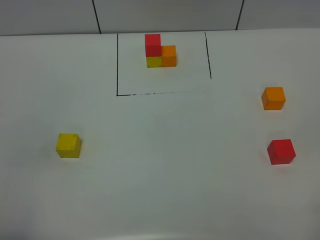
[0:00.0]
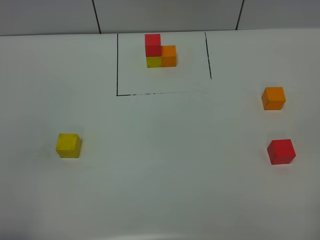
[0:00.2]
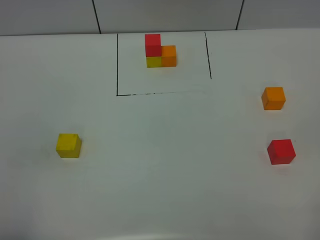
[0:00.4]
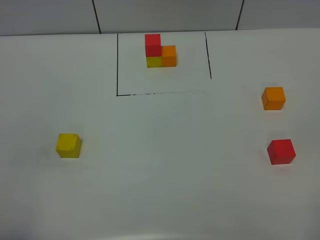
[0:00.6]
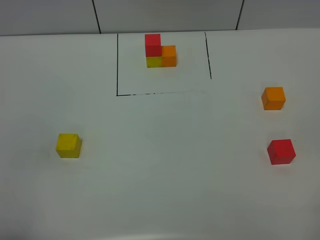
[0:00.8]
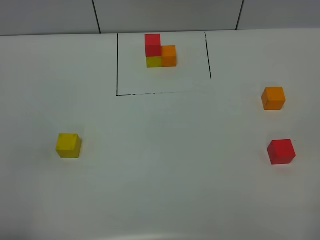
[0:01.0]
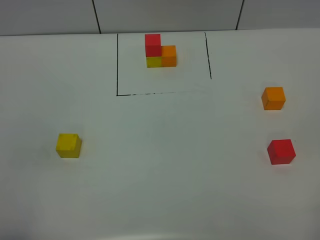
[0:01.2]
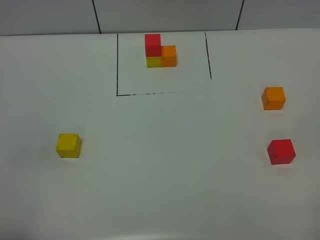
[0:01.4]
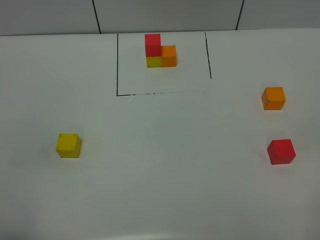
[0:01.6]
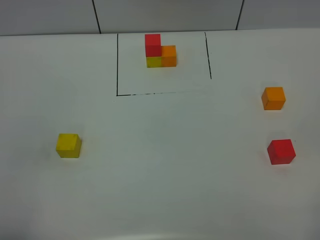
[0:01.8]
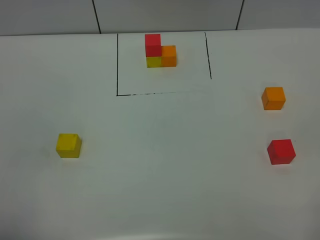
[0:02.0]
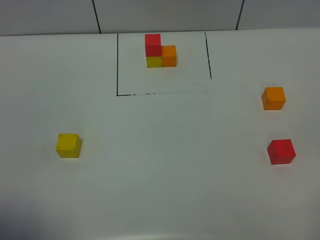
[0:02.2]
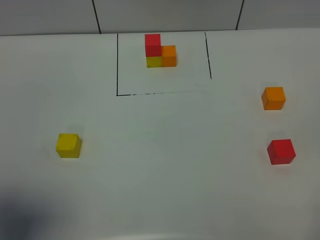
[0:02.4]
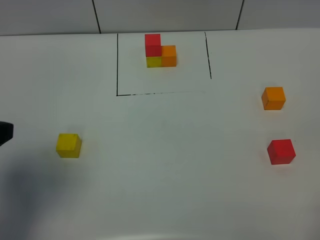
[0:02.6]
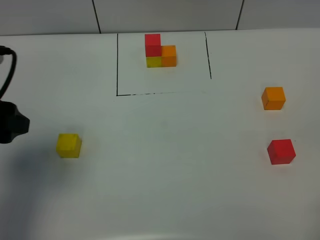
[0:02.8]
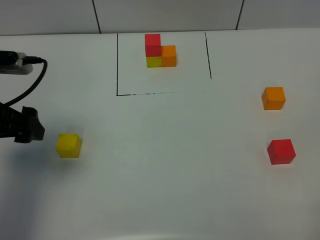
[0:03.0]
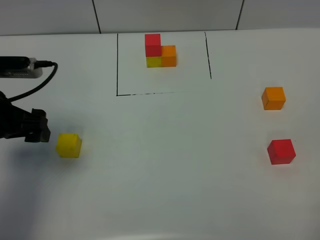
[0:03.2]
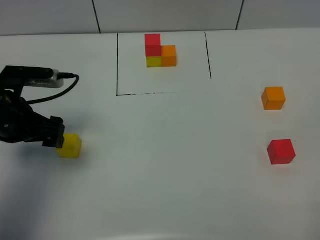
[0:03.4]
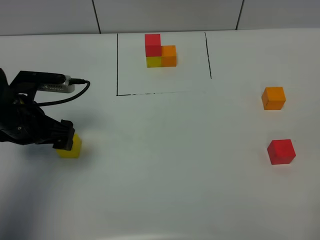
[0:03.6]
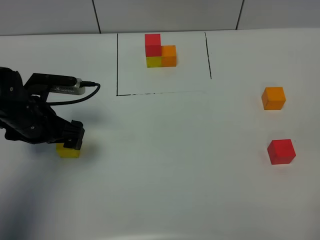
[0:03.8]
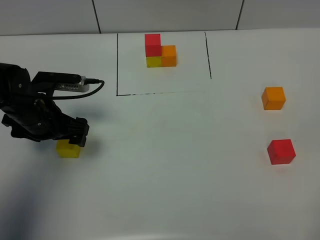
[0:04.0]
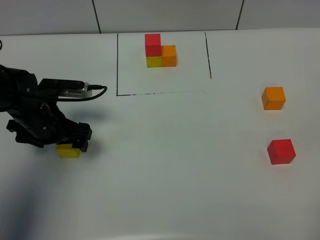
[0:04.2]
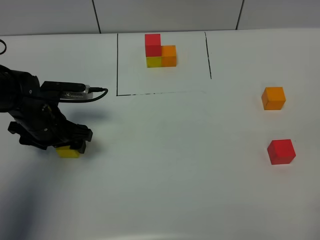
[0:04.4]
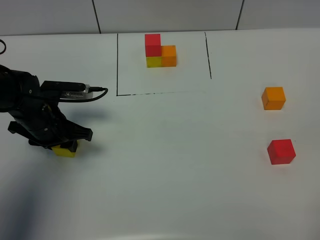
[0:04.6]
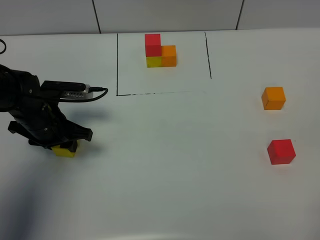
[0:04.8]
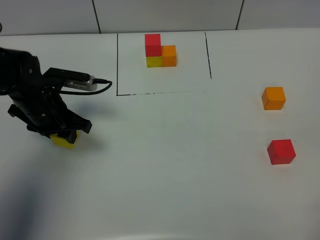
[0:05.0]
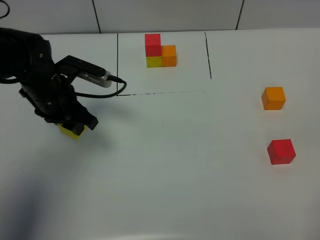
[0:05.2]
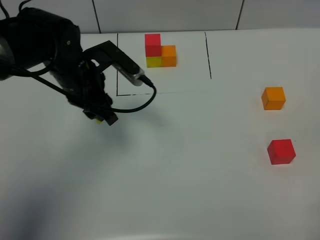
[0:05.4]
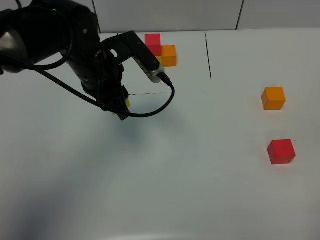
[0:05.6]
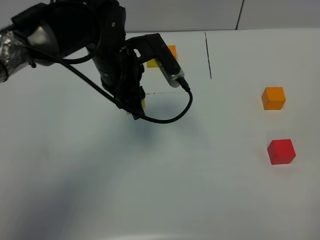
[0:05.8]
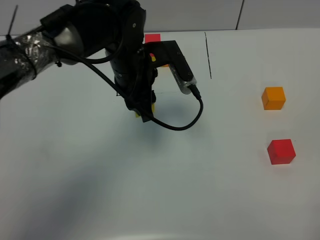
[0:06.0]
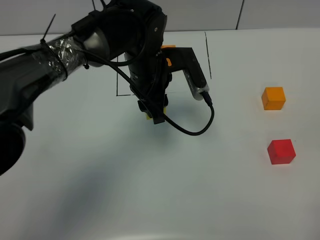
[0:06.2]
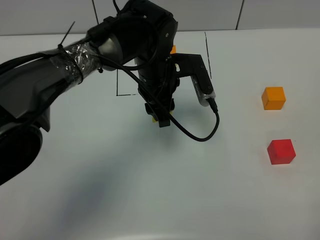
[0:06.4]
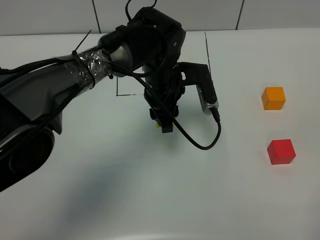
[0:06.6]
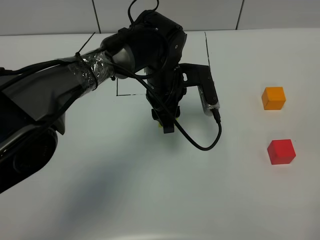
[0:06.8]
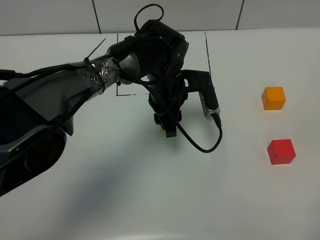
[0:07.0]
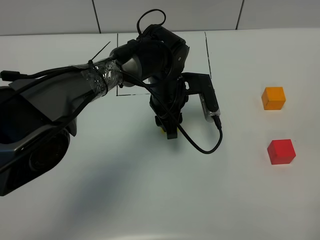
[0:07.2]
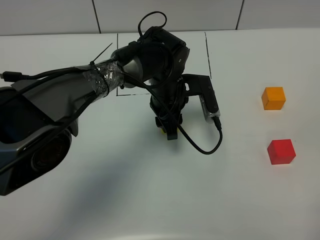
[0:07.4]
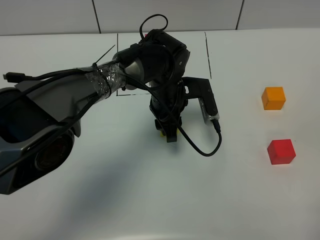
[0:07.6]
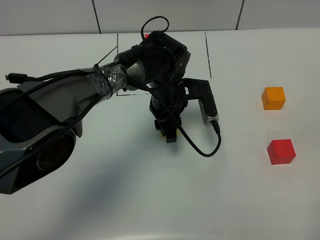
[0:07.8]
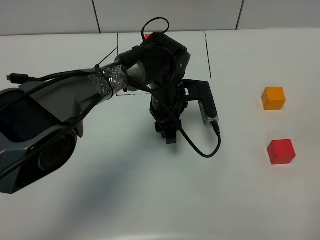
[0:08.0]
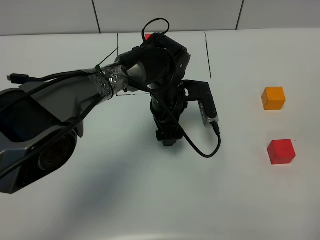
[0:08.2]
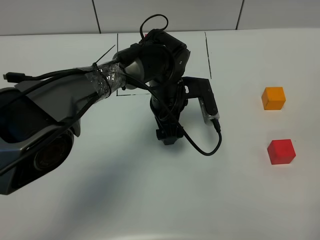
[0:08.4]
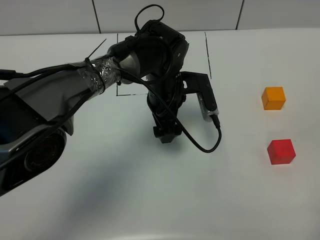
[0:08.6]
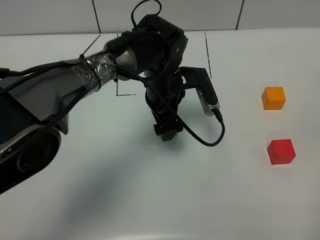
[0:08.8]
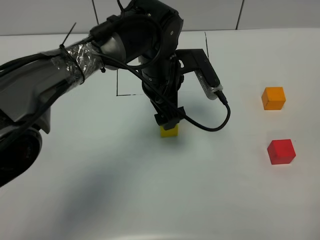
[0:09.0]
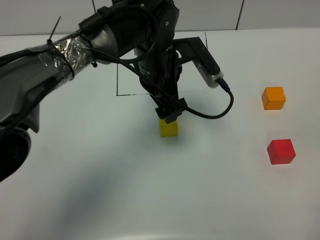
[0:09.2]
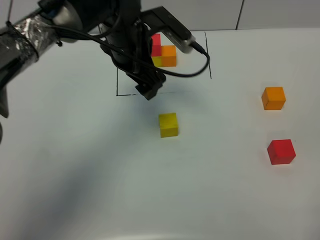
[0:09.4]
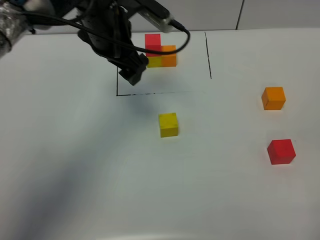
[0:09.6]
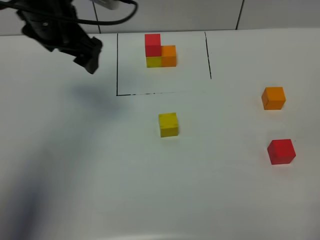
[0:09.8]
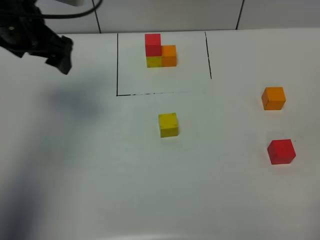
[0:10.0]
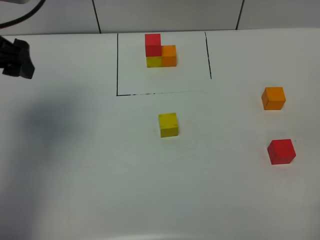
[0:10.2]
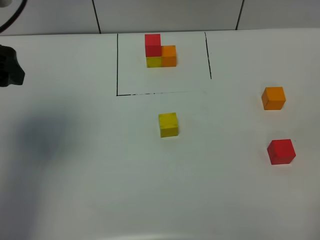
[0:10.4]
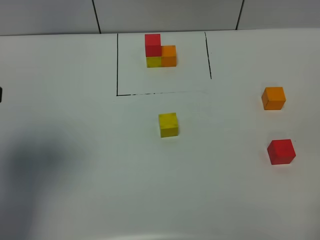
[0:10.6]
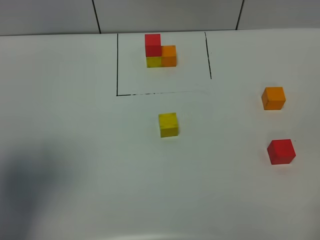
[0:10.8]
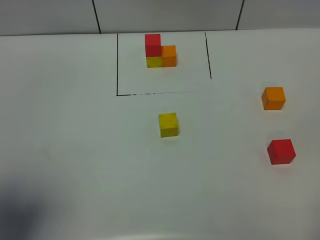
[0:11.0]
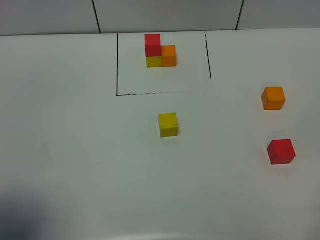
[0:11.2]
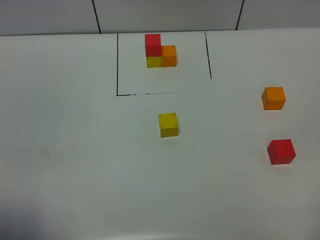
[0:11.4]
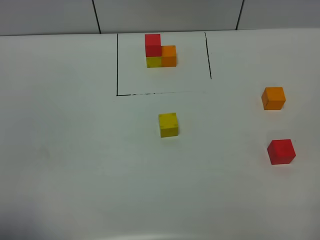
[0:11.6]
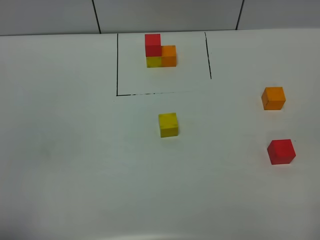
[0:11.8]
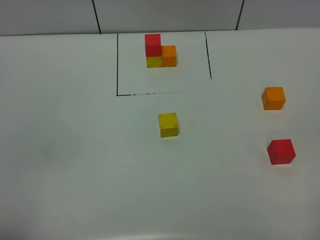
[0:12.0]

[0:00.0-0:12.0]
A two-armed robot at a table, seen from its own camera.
Task of the whole recording: According to the building block template in front, assemble the scattered blocks together.
Step, 0:00.0 to 0:08.0: Put the yellow build block in the center of the table.
0:00.0 to 0:01.6: Both grippers stay put.
0:01.6 to 0:03.0: The left gripper moves forward, about 25 cm, and opens its fingers.
0:03.0 to 0:04.4: The left gripper moves downward and forward, some 15 cm, and closes up.
0:04.4 to 0:06.0: The left gripper travels to the right and upward by some 20 cm, and closes up.
0:06.0 to 0:07.6: The left gripper is displaced downward and to the right by approximately 10 cm.
0:07.6 to 0:09.0: The left gripper travels upward by some 10 cm, and opens.
0:09.0 to 0:10.4: The left gripper shifts roughly 30 cm to the left and upward.
0:10.4 to 0:12.0: The left gripper shifts some 25 cm backward.

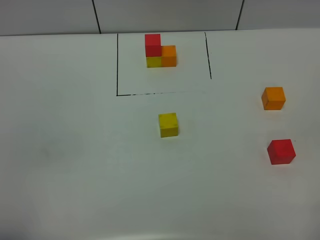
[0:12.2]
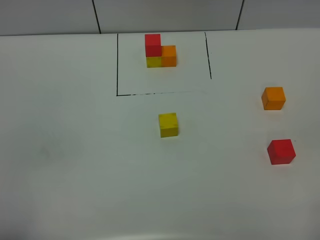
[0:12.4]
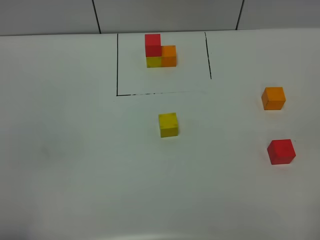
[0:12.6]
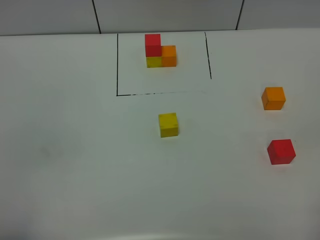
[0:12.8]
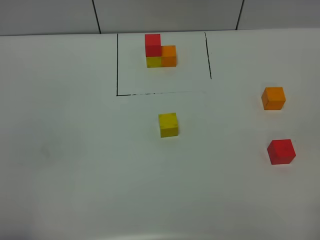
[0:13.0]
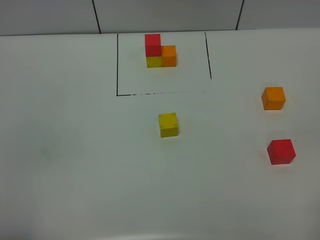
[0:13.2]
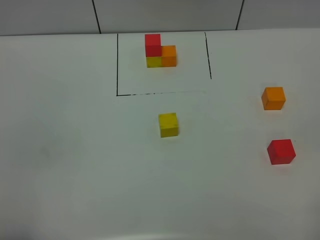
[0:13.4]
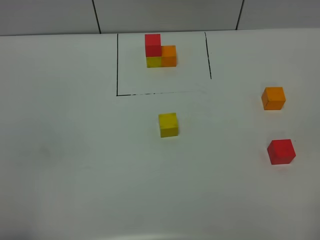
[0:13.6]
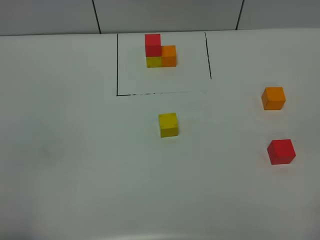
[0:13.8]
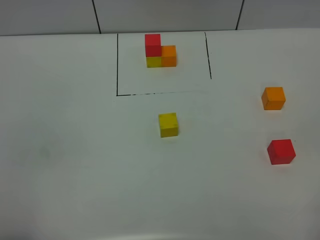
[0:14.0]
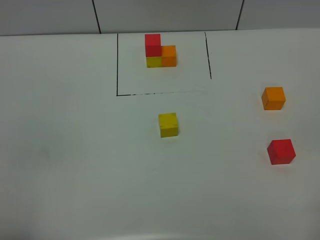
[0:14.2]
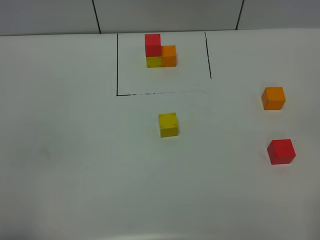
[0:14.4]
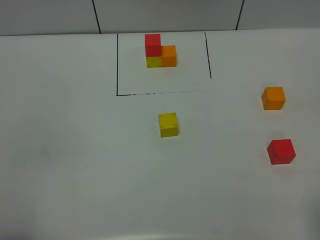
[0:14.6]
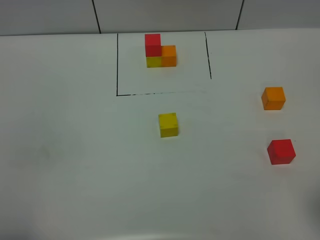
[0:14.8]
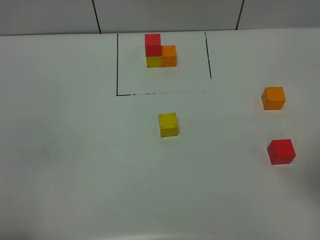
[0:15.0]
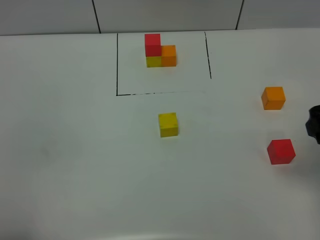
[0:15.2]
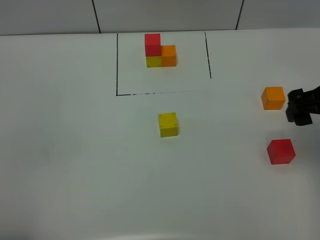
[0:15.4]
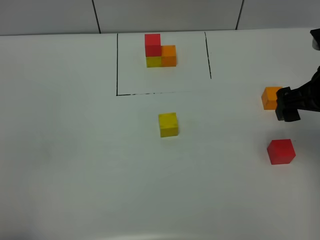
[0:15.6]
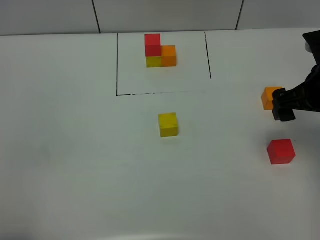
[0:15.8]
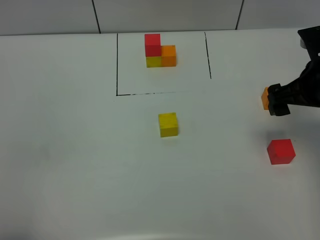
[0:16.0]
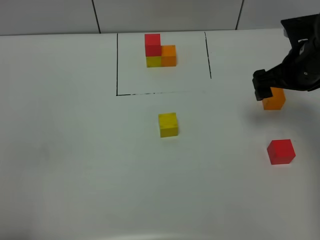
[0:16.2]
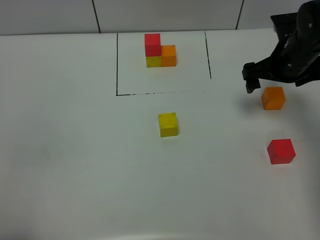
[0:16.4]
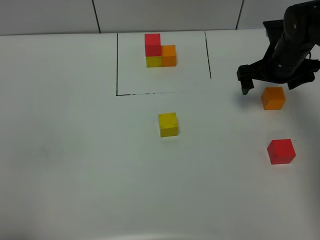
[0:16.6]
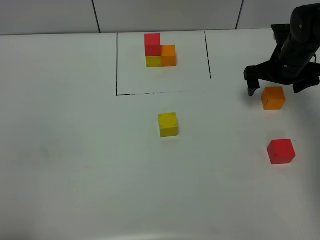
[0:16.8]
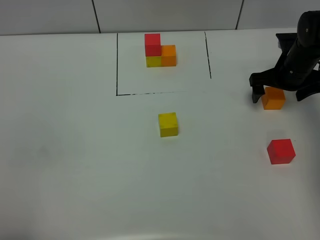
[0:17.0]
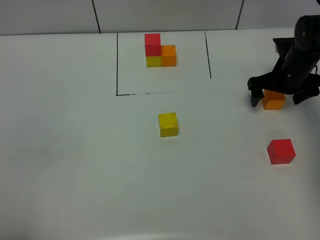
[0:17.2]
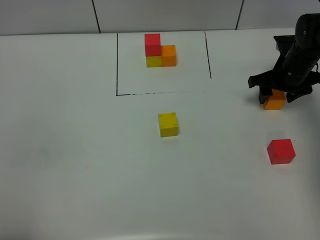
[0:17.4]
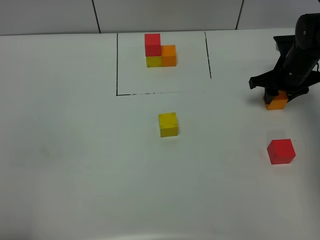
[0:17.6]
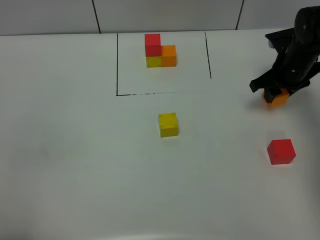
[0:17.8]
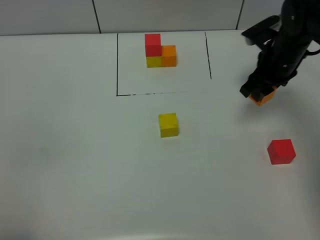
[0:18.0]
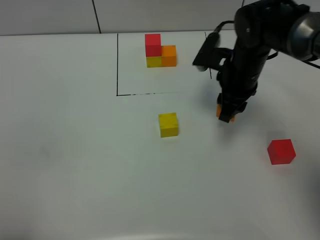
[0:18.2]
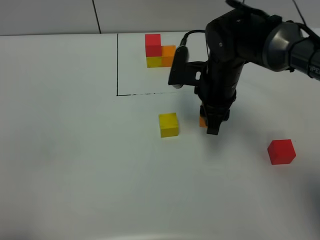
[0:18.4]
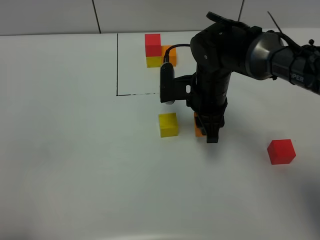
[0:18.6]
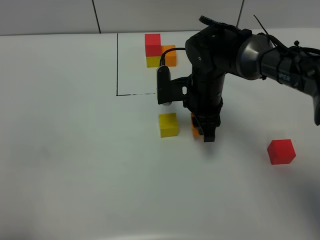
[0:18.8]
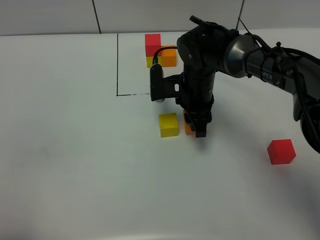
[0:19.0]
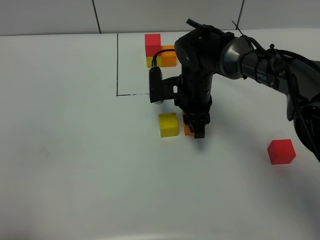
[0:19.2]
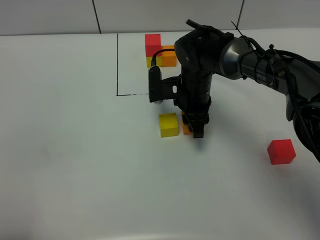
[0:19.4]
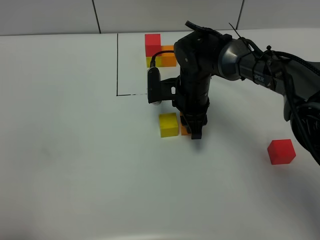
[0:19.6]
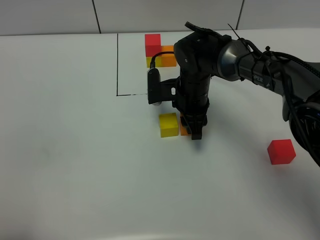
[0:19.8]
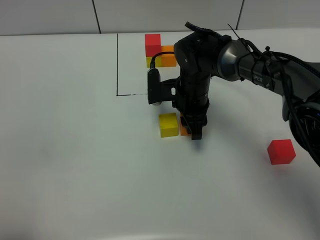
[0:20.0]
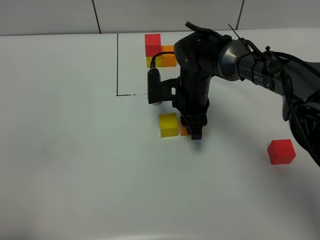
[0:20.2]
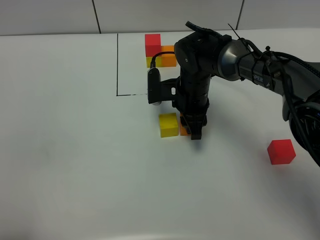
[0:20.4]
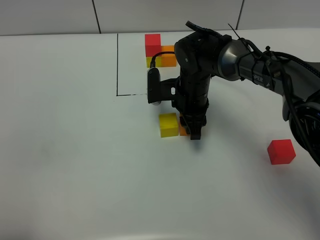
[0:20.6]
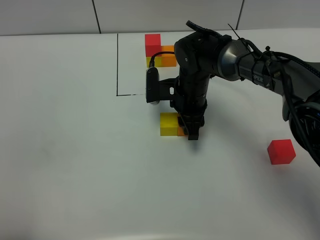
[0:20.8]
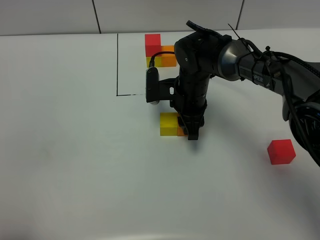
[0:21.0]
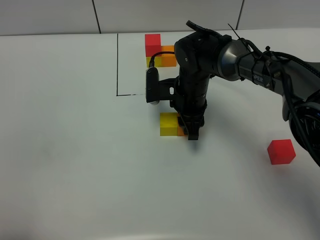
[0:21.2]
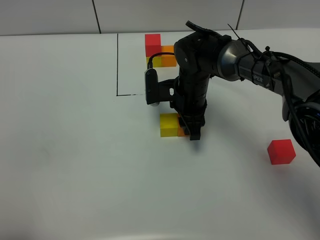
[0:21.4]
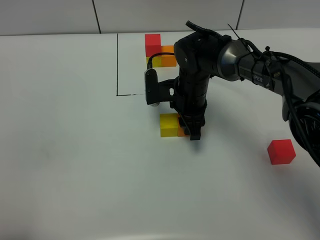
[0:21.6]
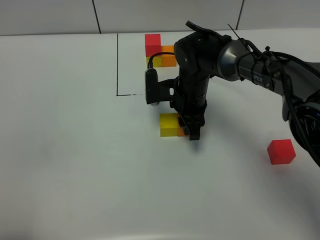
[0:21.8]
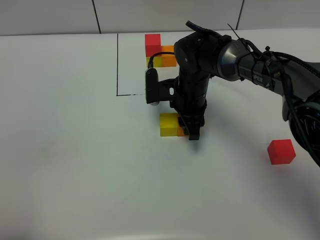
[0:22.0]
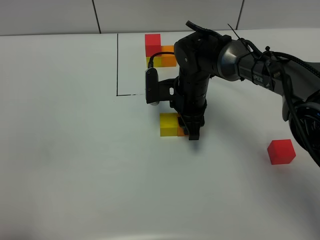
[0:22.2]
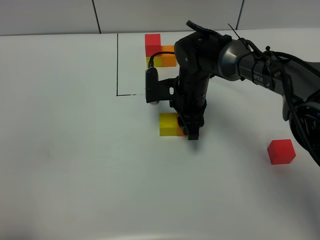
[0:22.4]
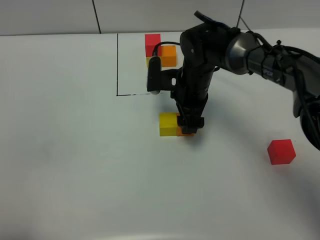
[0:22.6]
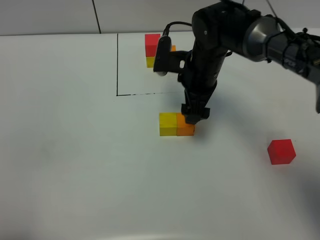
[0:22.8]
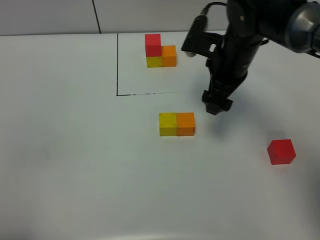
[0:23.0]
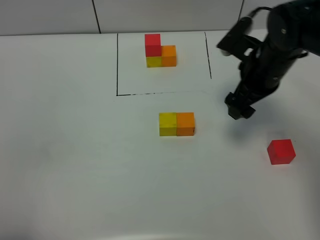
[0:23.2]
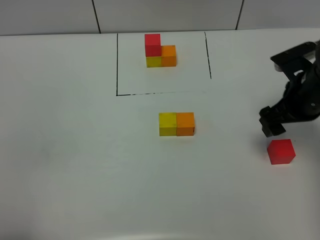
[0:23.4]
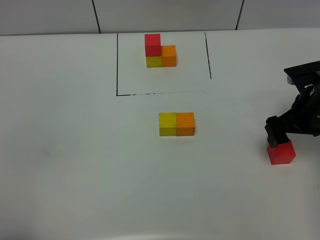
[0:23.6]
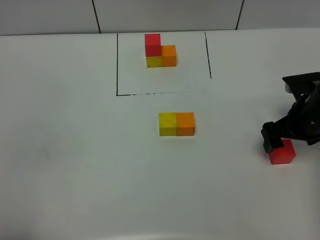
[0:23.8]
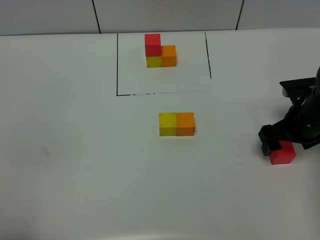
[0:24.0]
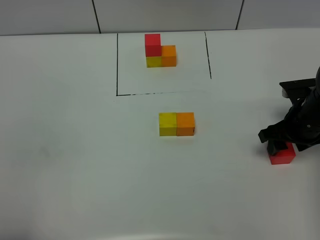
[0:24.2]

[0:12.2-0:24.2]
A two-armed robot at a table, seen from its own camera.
Task of the whole recording: According to the building block template in front, assemble the scattered blocks together.
Step, 0:12.2 to 0:22.6: Put the orange build block on the right of the yellow build block.
0:13.8 to 0:15.2: The right gripper travels forward by roughly 20 cm.
0:15.2 to 0:16.6: The right gripper heads forward and downward, covering about 25 cm.
0:16.6 to 0:18.2: The right gripper heads to the left, covering roughly 10 cm, and closes.
0:18.2 to 0:19.8: The right gripper travels to the left and downward by some 10 cm.
0:19.8 to 0:21.2: Neither gripper changes place.
0:21.2 to 0:22.6: The right gripper opens its fingers.
0:22.6 to 0:24.2: The right gripper shifts about 20 cm to the right and backward, and closes up.
